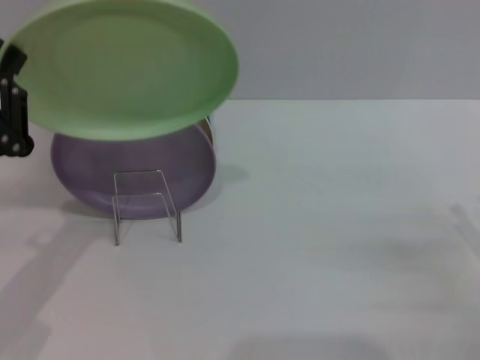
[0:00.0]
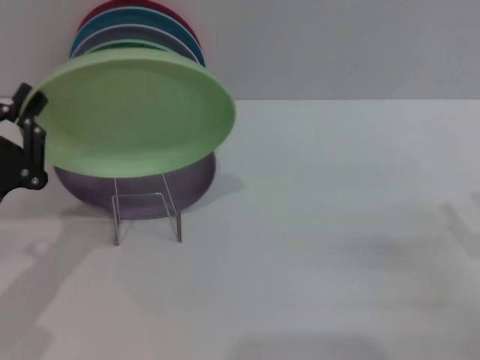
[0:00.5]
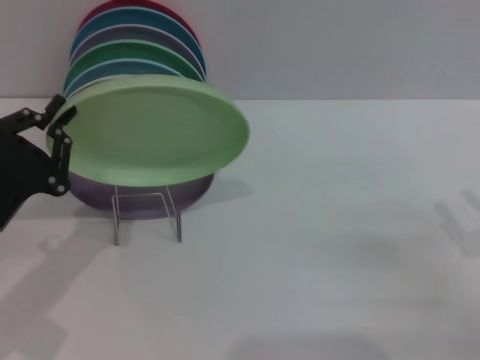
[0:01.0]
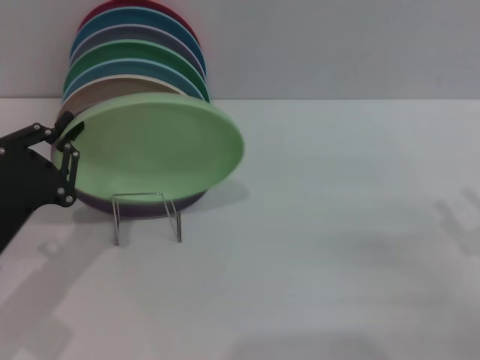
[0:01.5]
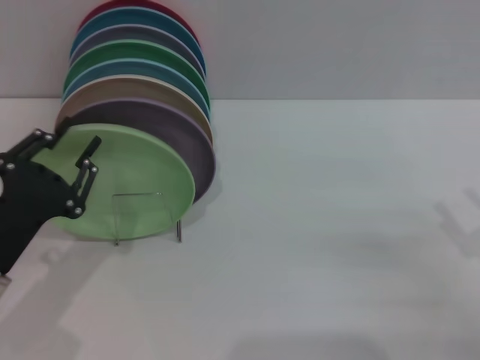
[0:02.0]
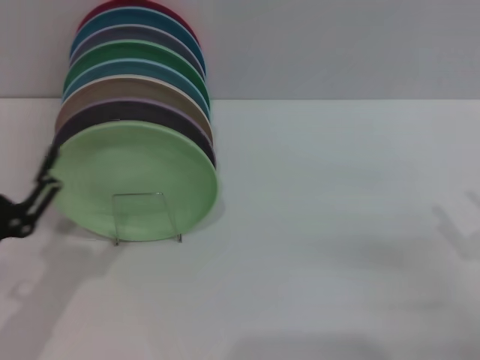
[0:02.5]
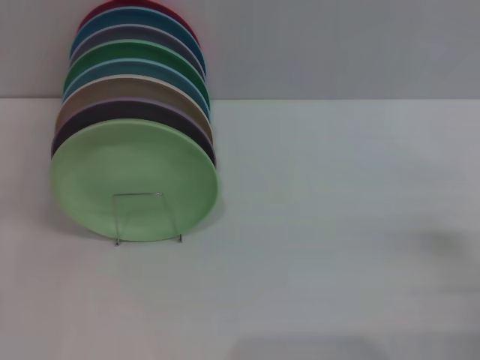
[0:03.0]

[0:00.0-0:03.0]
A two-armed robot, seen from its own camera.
Task of the whole recording: Grip the plate with one hand, pass it to the other, then set it on the shelf.
Step, 0:00.0 to 0:02.0: Place the plate on the shelf with the left gripper.
0:01.5 to 0:03.0: The left gripper moves backward and to the left, some 10 cm, and opens up.
